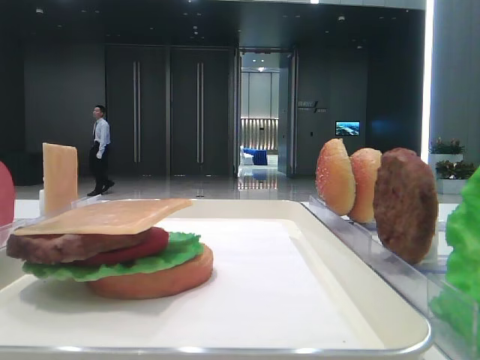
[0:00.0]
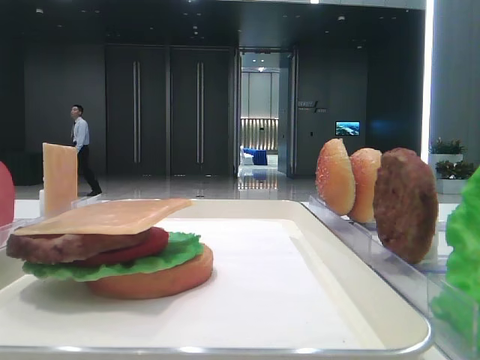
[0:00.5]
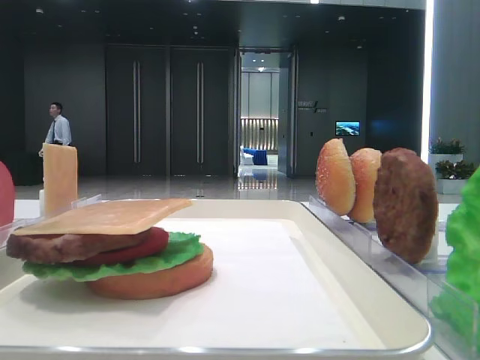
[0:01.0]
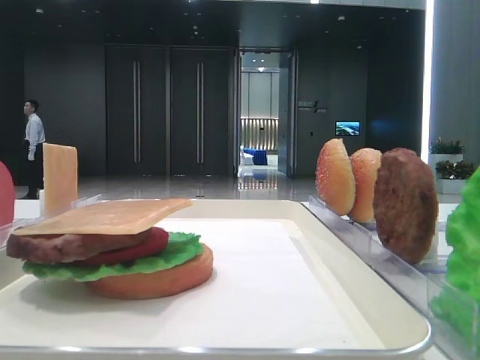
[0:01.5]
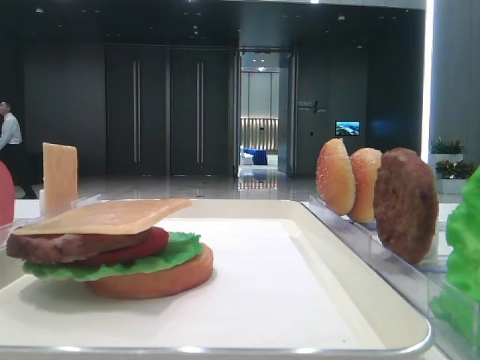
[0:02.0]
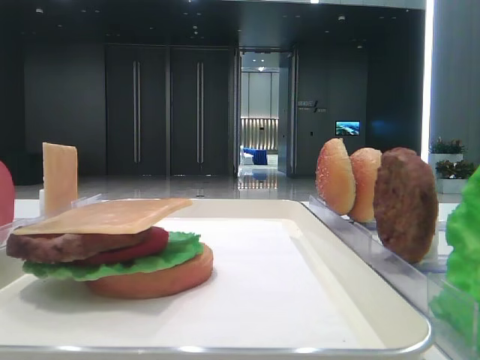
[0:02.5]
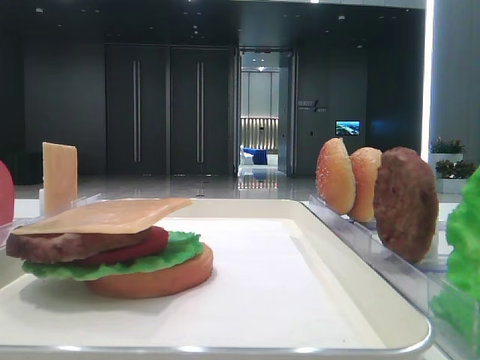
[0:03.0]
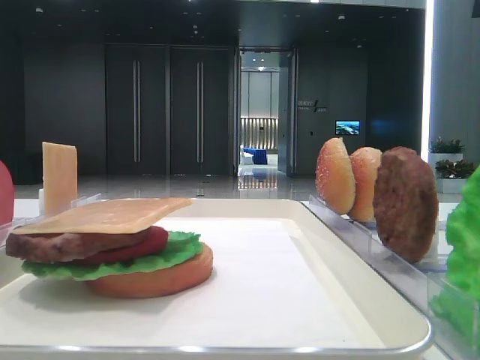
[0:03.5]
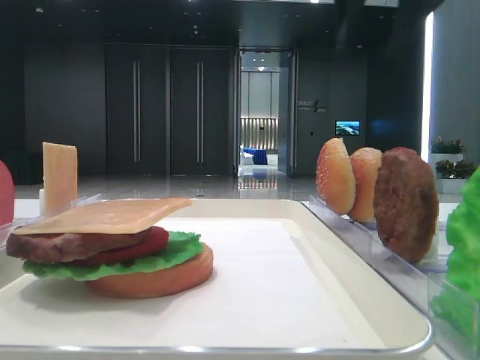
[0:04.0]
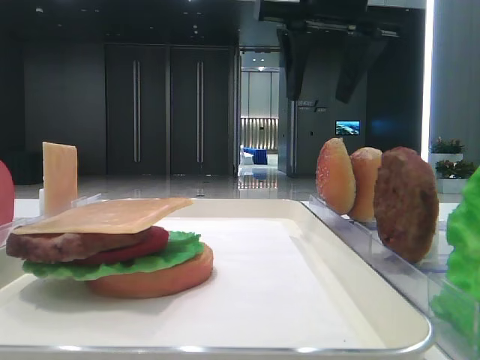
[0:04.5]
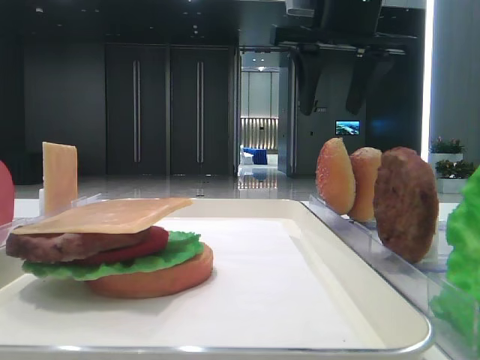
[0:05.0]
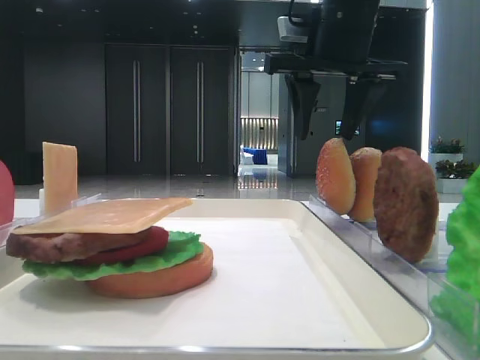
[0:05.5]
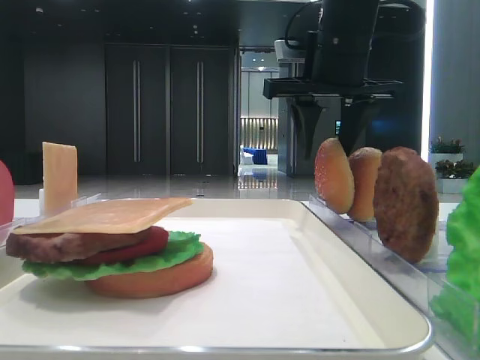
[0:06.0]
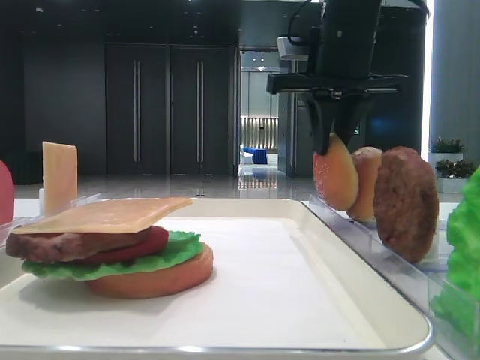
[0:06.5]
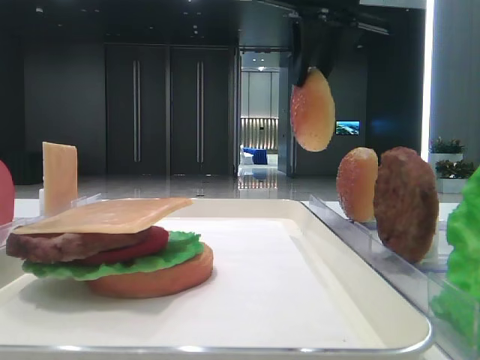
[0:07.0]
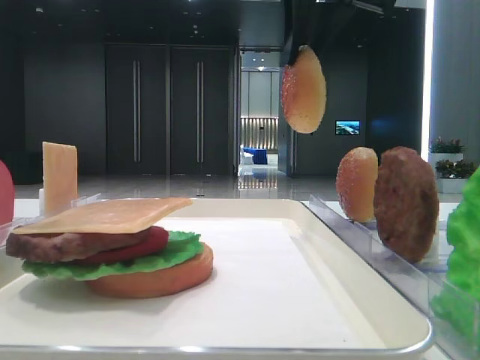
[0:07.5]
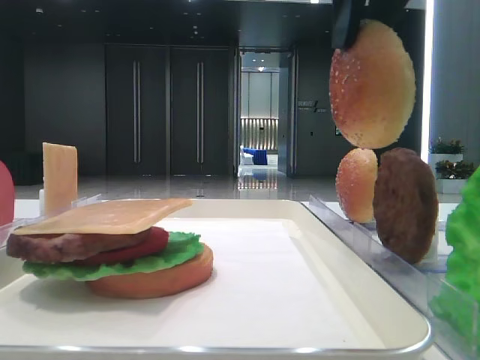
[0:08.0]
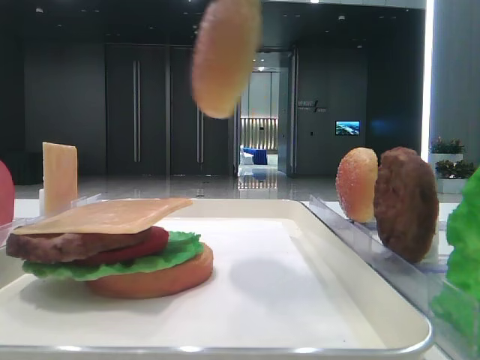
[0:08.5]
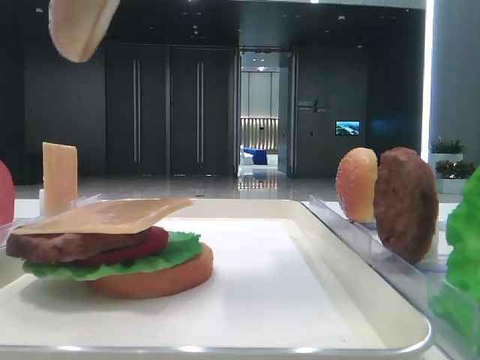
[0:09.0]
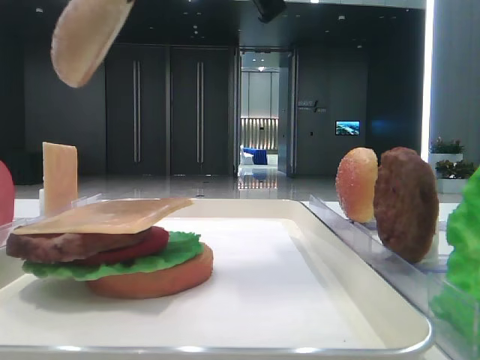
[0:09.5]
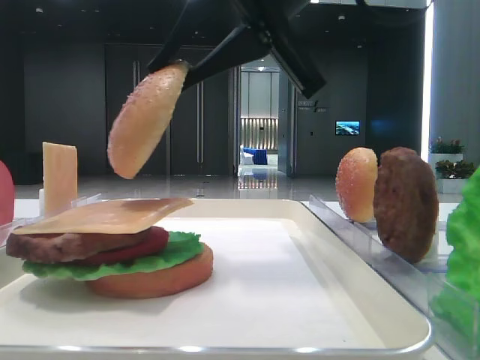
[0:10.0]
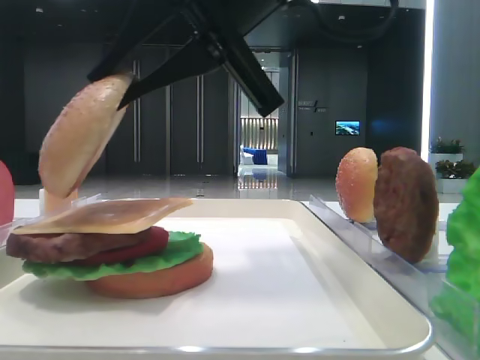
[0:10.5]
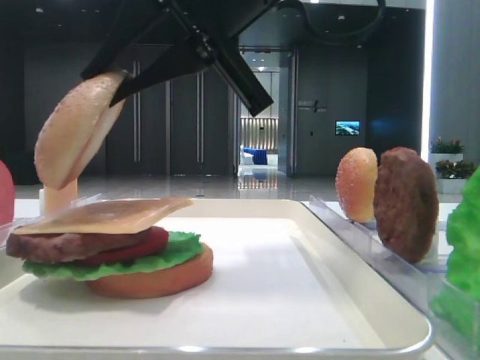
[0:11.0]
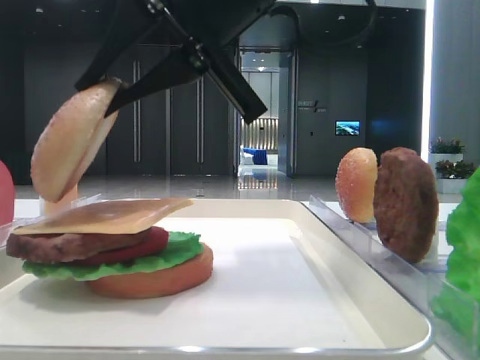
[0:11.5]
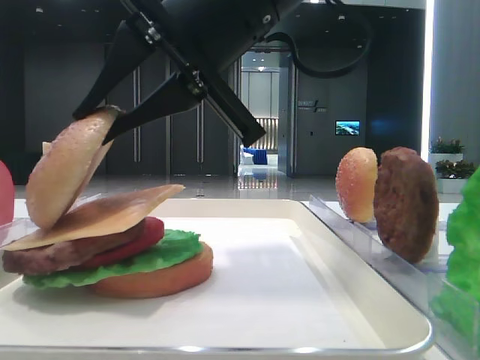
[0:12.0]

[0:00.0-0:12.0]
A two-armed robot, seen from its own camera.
Step, 0:00.0 to 0:06.0: Pick up the top bread slice with the right hand.
0:02.0 to 0:04.0: The right gripper is displaced forward and to the left by some 35 cm.
0:04.0 to 0:06.0: The right gripper travels downward and forward by roughly 10 cm.
0:06.0 to 0:08.0: The right gripper heads backward and upward, covering approximately 15 cm, and closes its fingers.
0:08.0 to 0:10.0: The right gripper is displaced downward and to the left by approximately 10 cm.
0:10.0 to 0:12.0: The right gripper ends up about 5 cm from where it was.

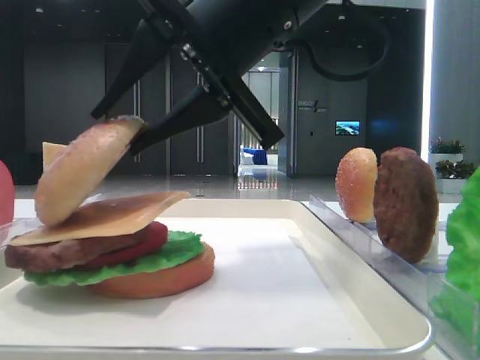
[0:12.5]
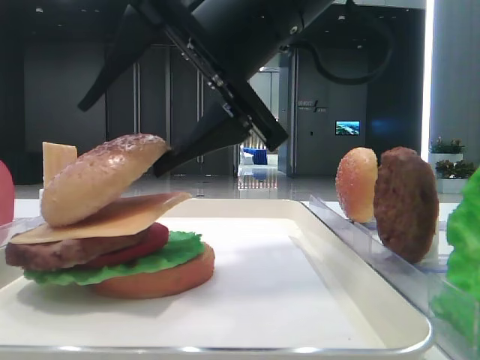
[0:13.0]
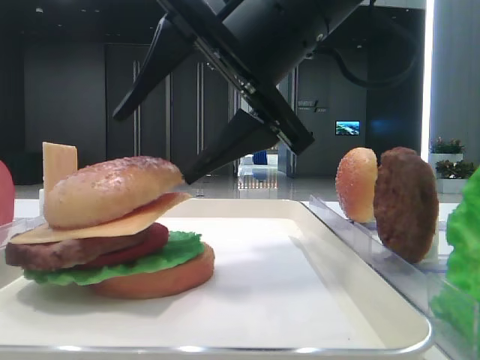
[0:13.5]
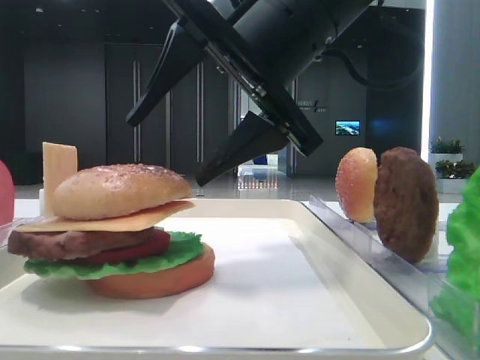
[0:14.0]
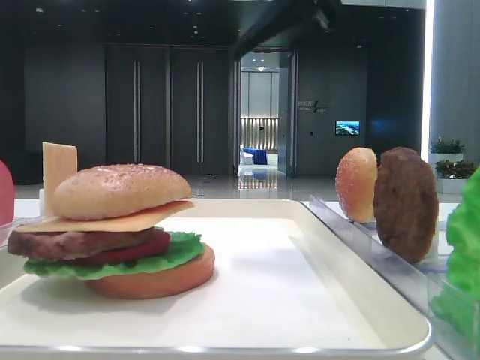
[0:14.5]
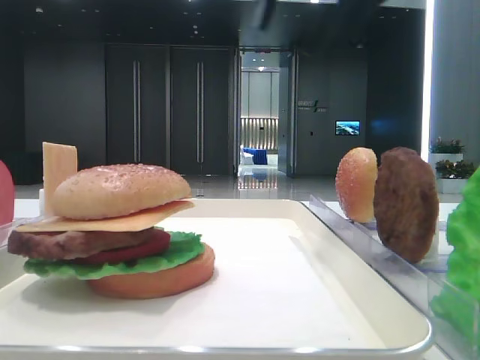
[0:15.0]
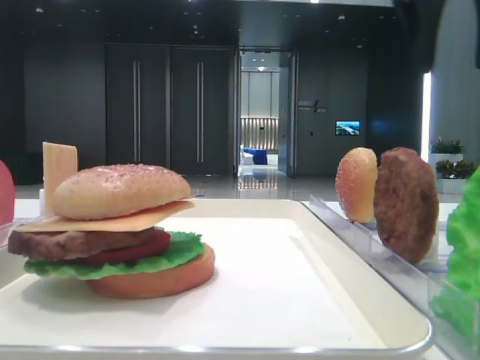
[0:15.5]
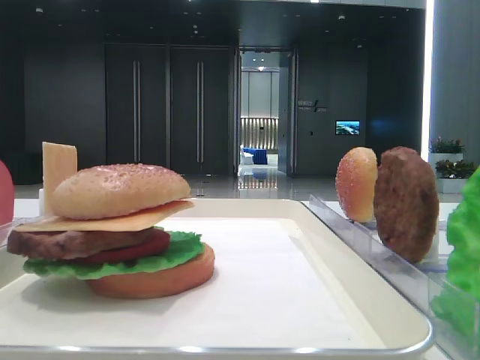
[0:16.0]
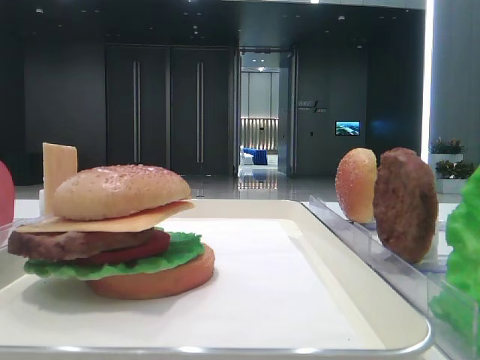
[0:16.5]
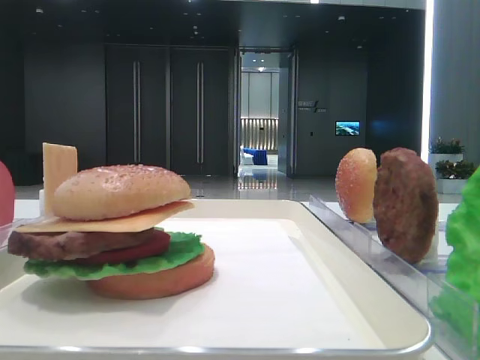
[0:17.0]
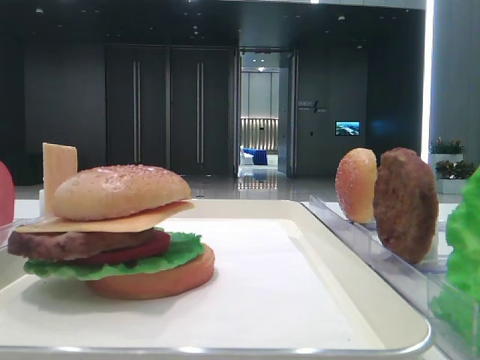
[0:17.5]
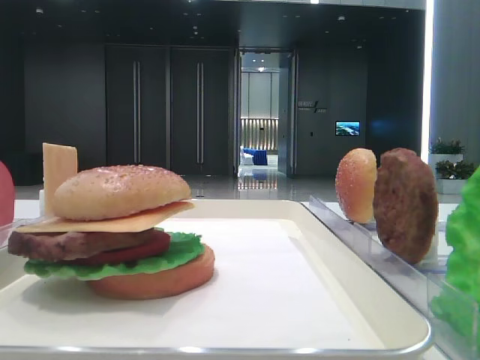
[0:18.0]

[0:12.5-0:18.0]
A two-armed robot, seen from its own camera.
0:12.5 to 0:14.5: The right gripper is displaced upward by approximately 10 cm, and opens.
0:14.5 to 0:16.0: The right gripper moves to the right, some 30 cm.
0:16.0 to 0:18.0: The right gripper heads backward, covering roughly 30 cm.

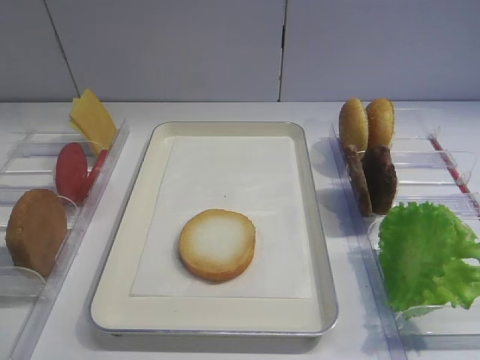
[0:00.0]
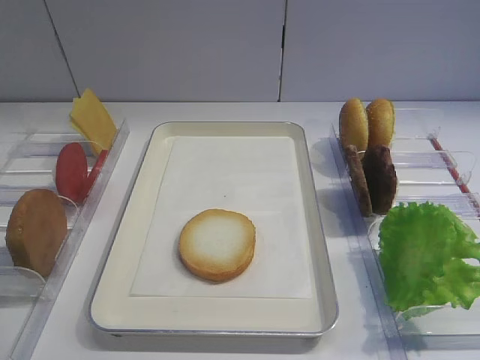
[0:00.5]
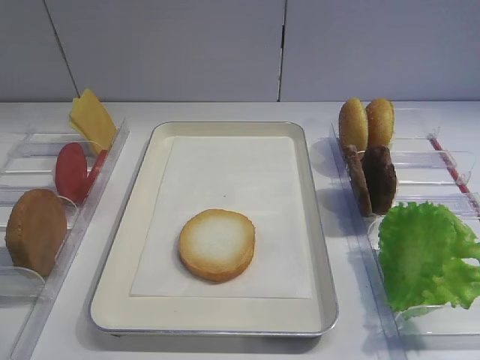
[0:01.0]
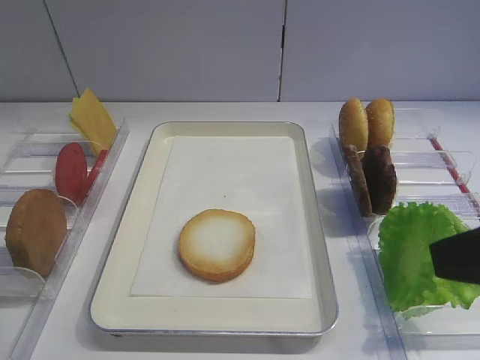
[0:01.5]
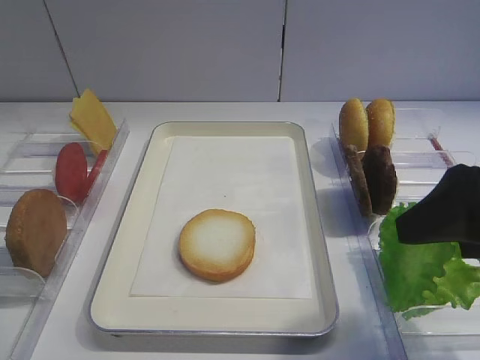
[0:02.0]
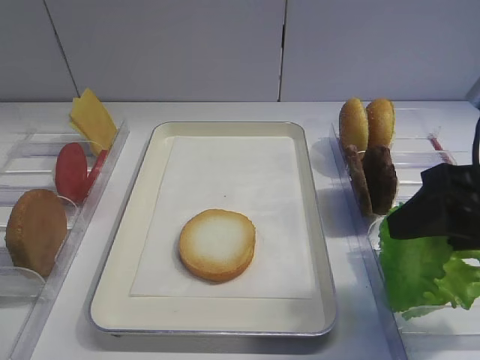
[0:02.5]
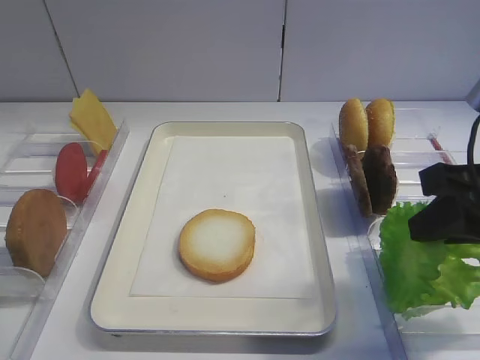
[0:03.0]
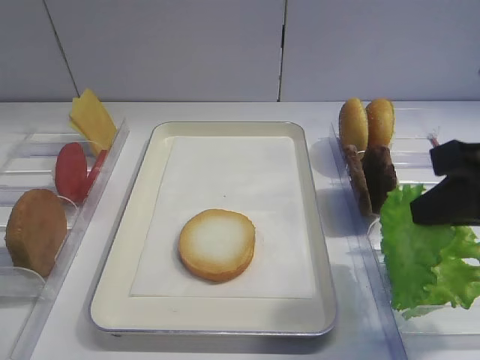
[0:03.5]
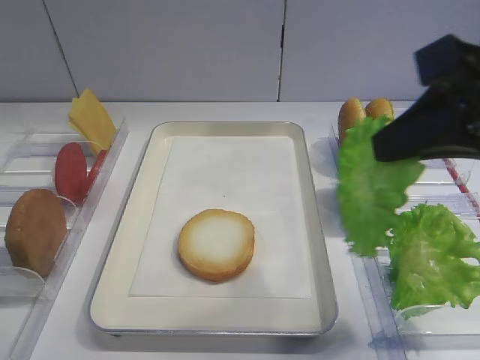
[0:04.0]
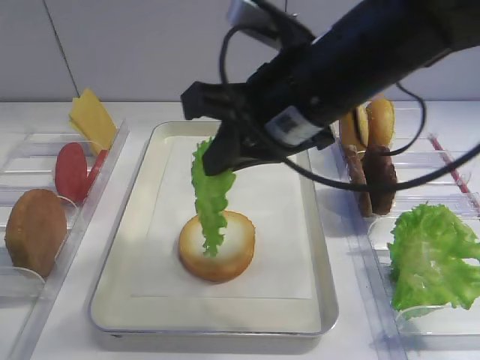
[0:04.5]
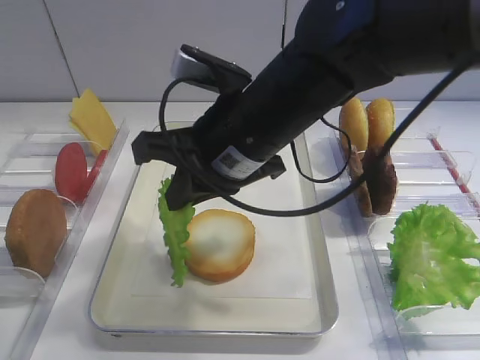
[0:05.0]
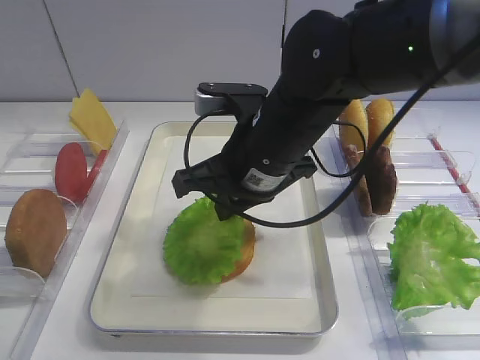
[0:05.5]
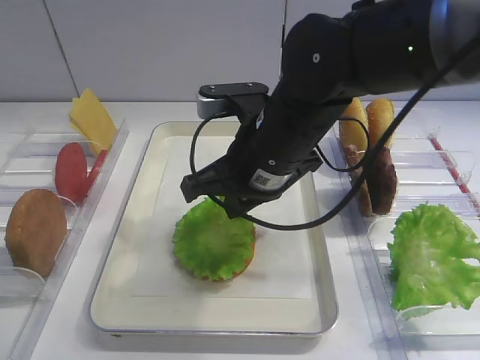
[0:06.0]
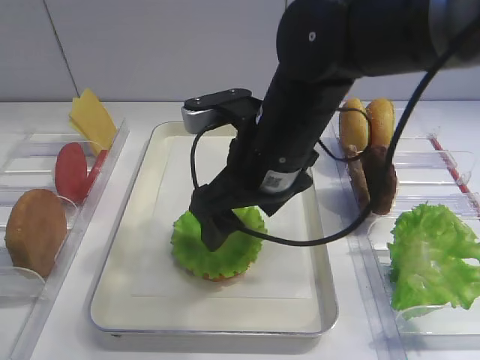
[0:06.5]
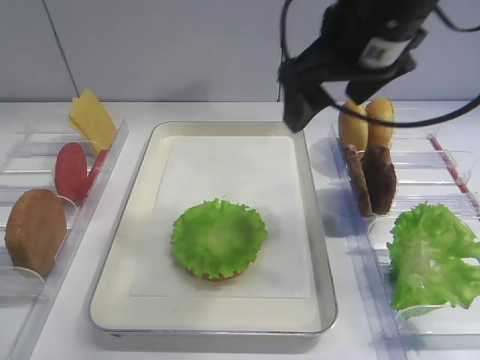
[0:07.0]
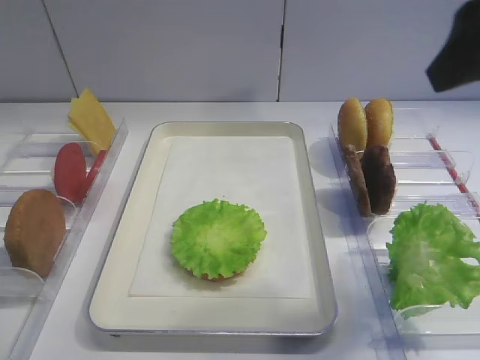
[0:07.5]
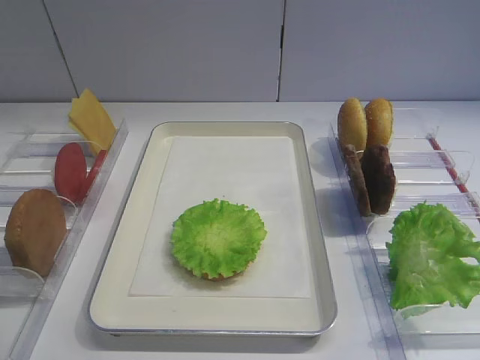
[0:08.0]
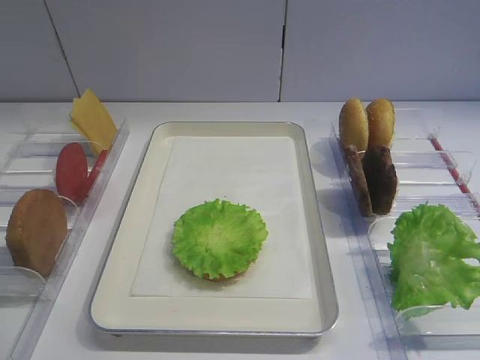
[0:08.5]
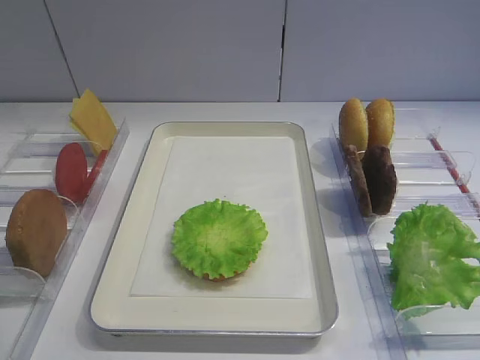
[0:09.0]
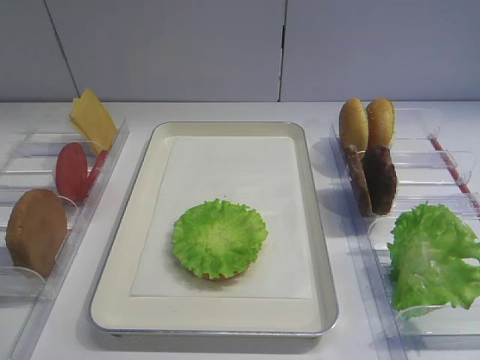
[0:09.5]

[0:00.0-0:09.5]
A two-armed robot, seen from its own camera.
Step, 0:00.0 to 0:03.5: Pick up the lettuce leaf with the right gripper.
Step, 0:04.0 to 0:06.5: Place the lettuce leaf on the bread slice with the right gripper.
0:02.0 to 0:04.0: The right gripper heads upward, covering about 5 cm, and closes.
0:04.0 to 0:05.5: The right gripper moves to the left, downward and forward, roughly 25 cm.
0:05.5 to 0:07.5: The right gripper travels to the right and upward by about 25 cm, and opens up.
0:07.5 to 0:09.5: The right gripper goes about 25 cm backward and downward.
